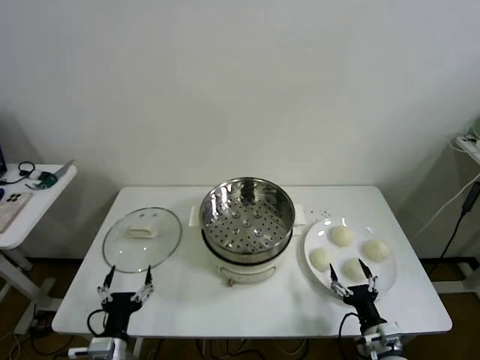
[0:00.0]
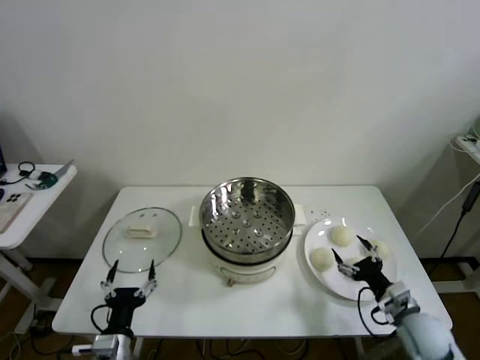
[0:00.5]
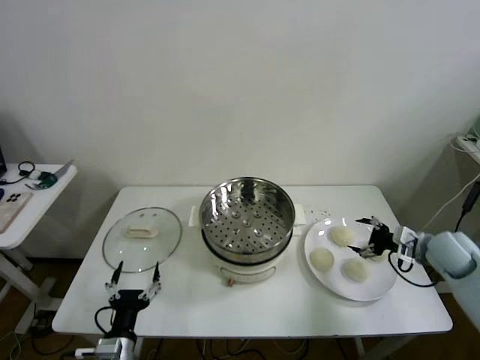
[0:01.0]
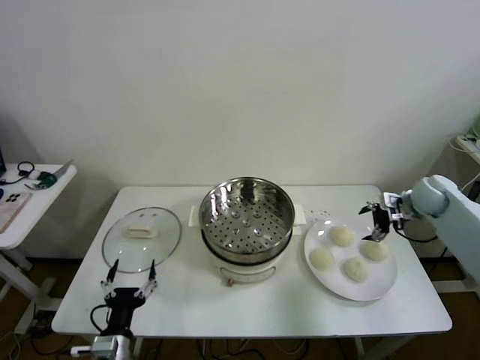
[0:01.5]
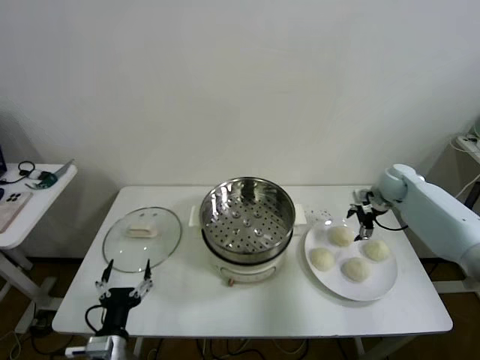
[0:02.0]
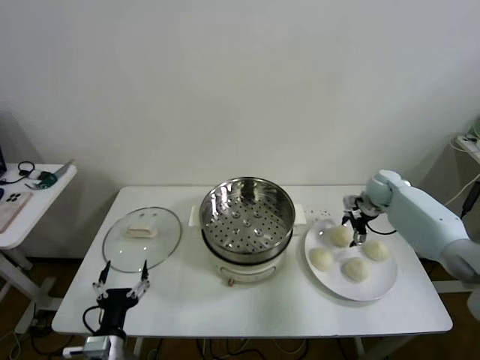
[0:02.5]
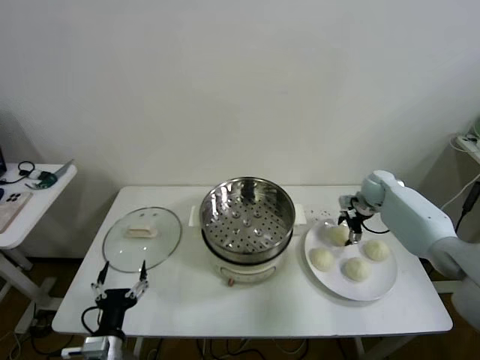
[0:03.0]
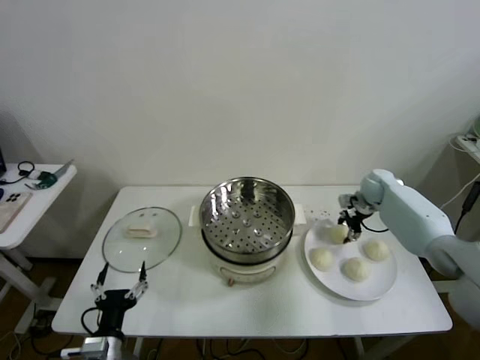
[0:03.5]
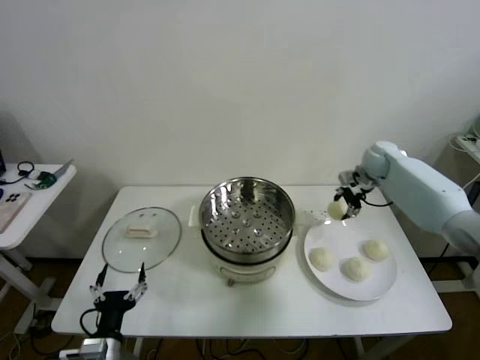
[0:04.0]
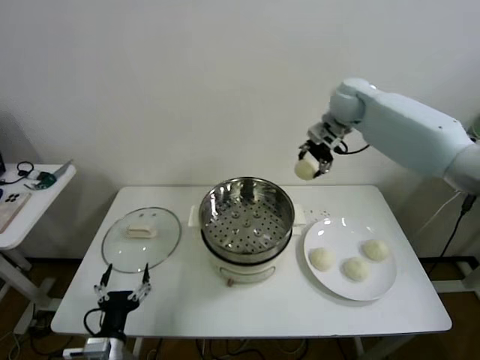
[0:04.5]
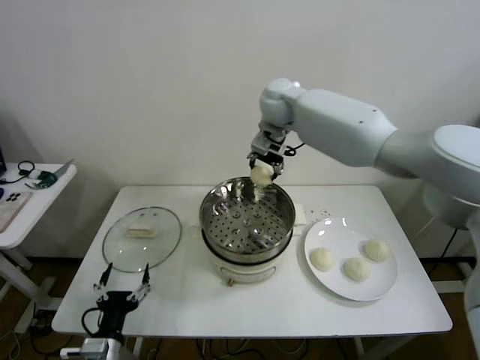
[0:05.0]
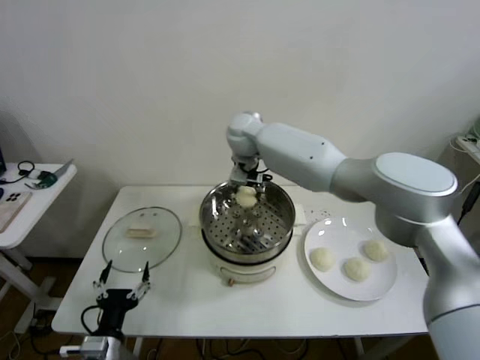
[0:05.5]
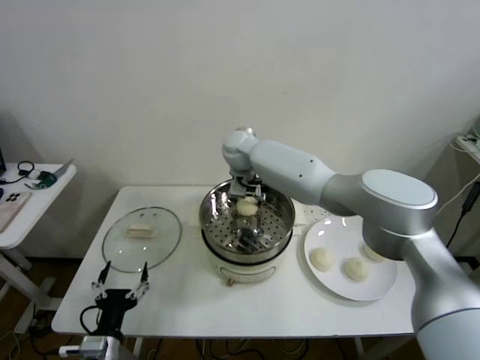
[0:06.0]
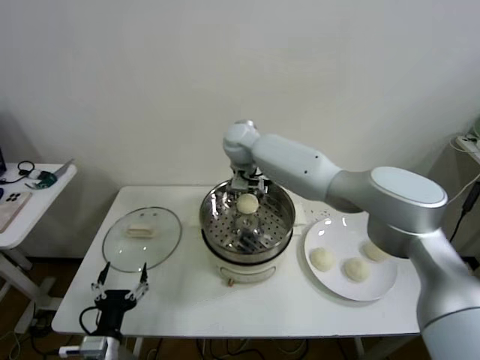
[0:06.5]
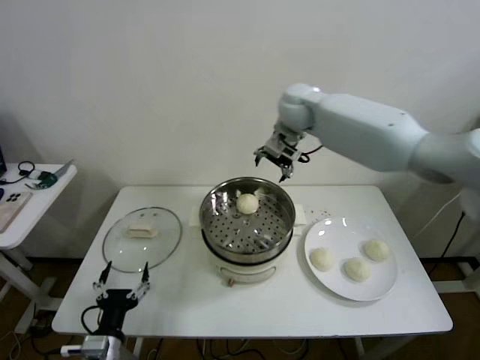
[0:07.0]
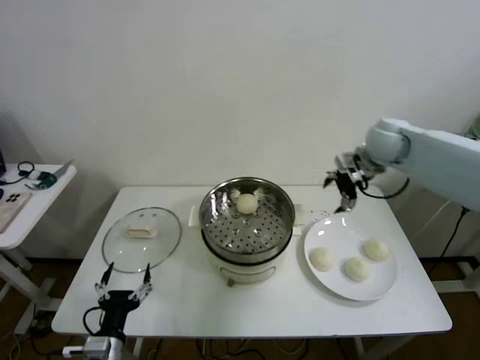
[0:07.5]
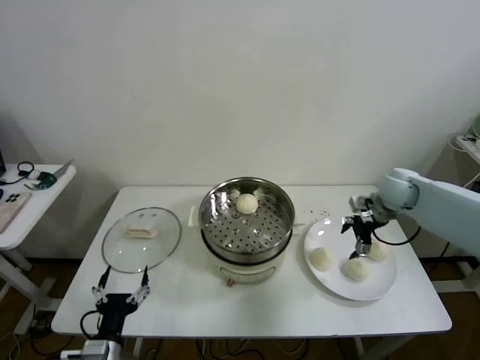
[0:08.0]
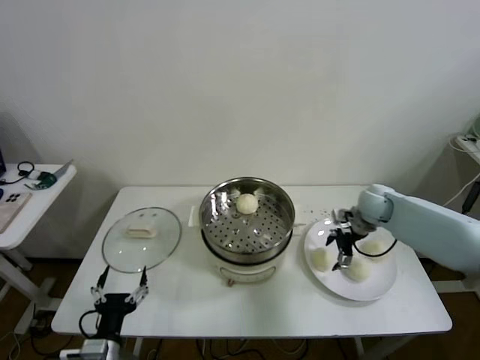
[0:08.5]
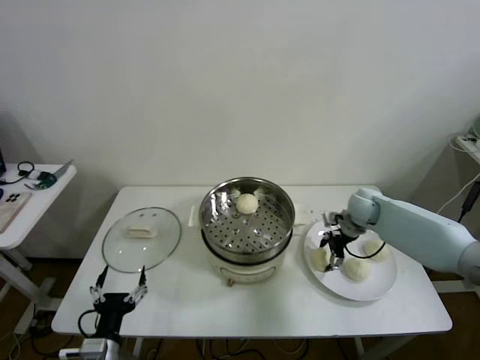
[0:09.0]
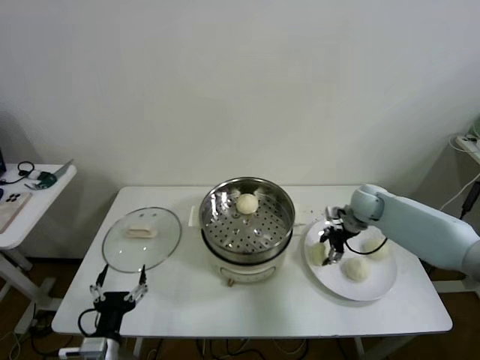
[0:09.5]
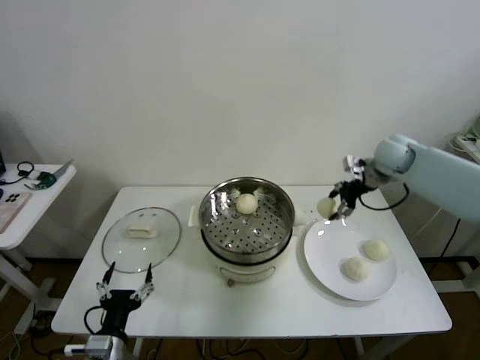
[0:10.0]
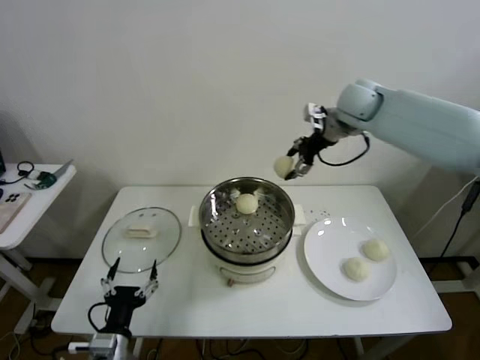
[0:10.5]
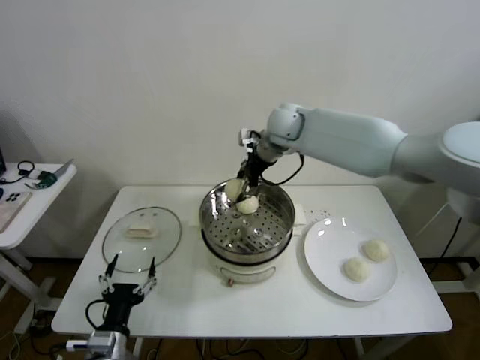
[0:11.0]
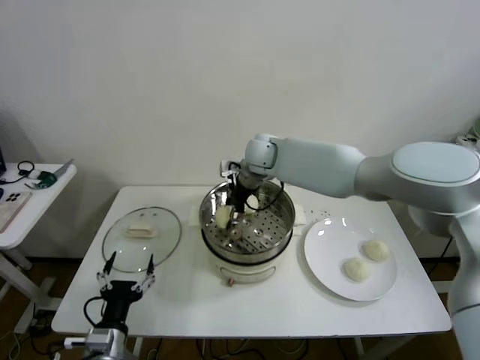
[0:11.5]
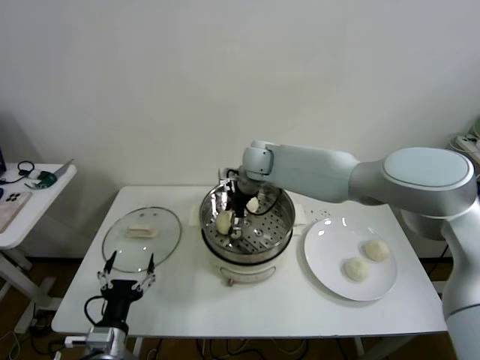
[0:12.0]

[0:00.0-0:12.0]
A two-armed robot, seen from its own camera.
Task of the whole recording: take steamed baozi put them in steamer then cover it.
Step, 0:00.0 to 0:03.0: Grasp the baozi in the plate with right gripper.
Step, 0:03.5 to 0:06.0: Place the baozi on the steamer with right gripper.
Step, 0:06.5 to 0:09.0: Grasp the baozi in the plate with right gripper.
0:02.0 to 0:04.0: The right gripper goes about 10 cm upward and to the left, and closes up.
0:04.0 to 0:06.0: The right gripper is displaced to the left by about 35 cm, and opens.
0:06.0 to 0:08.0: The right gripper goes some 40 cm to the right.
0:08.0 to 0:10.0: The right gripper travels upward and forward by roughly 15 cm, and closes its fingers.
0:10.0 to 0:12.0: The right gripper shifts roughly 30 cm to the left, and opens up.

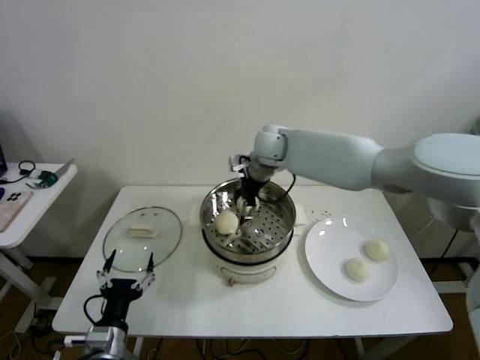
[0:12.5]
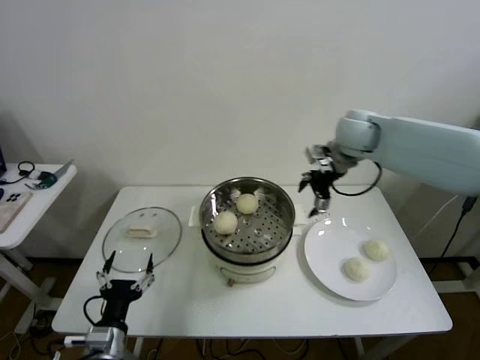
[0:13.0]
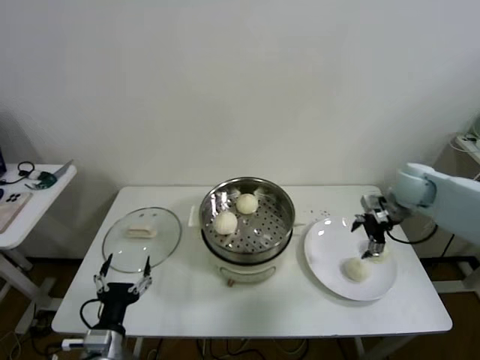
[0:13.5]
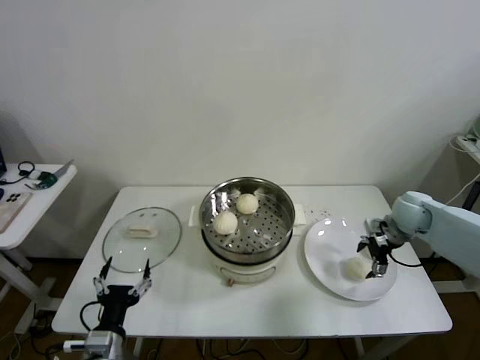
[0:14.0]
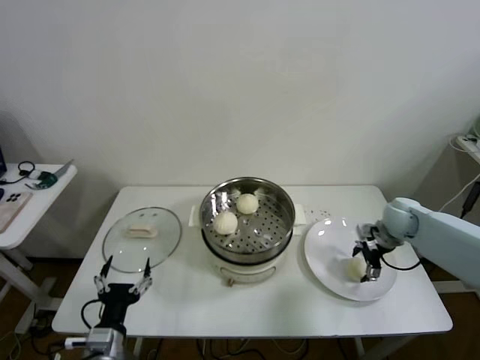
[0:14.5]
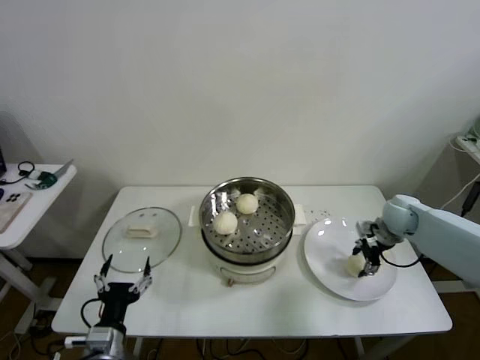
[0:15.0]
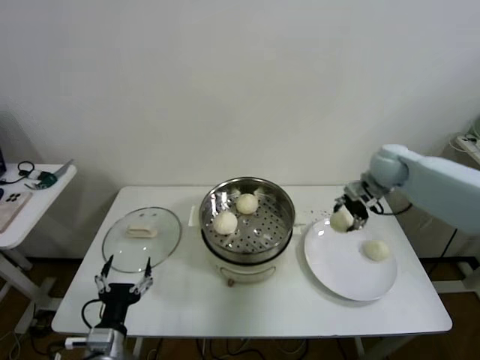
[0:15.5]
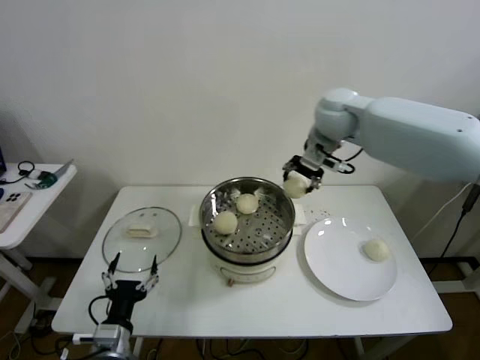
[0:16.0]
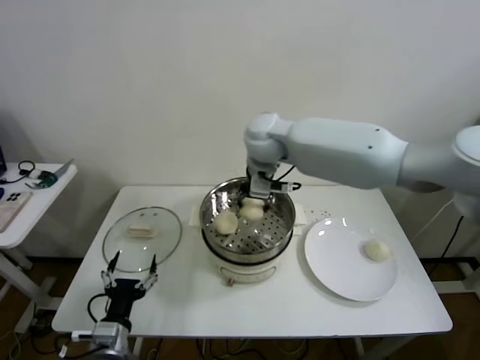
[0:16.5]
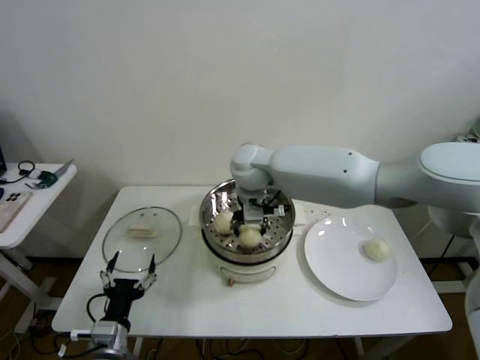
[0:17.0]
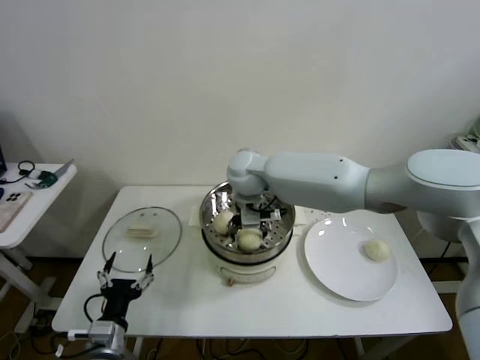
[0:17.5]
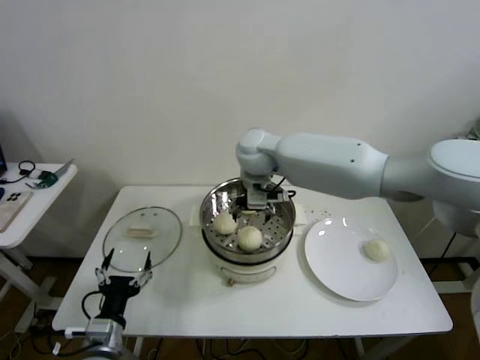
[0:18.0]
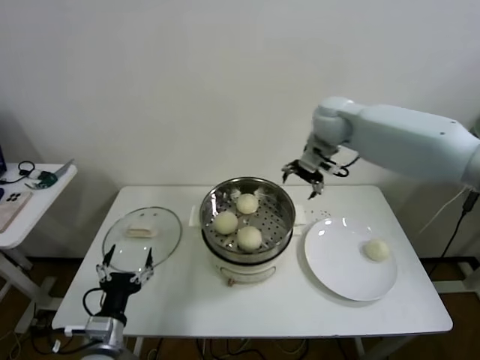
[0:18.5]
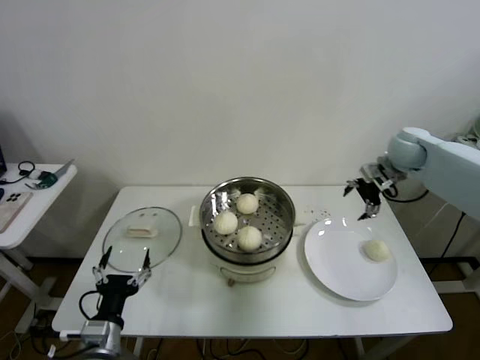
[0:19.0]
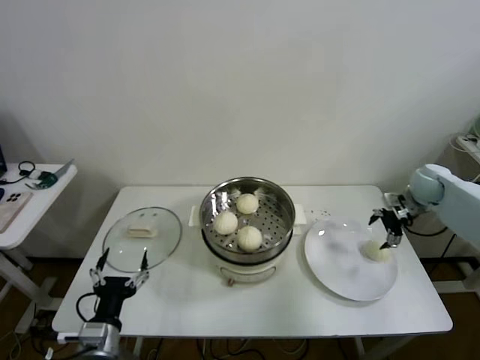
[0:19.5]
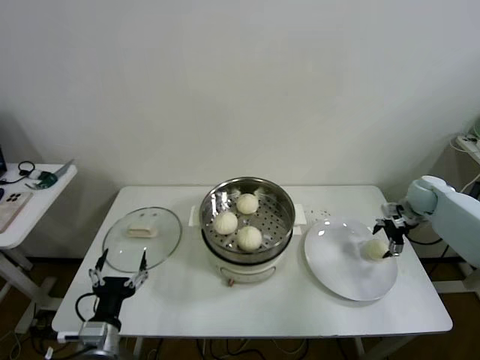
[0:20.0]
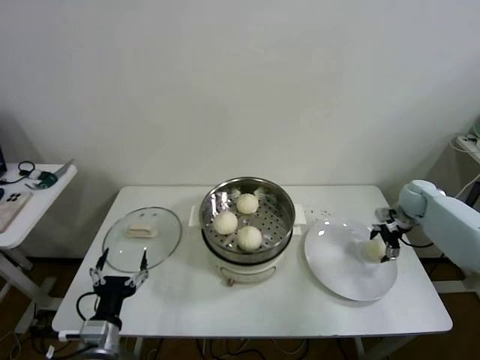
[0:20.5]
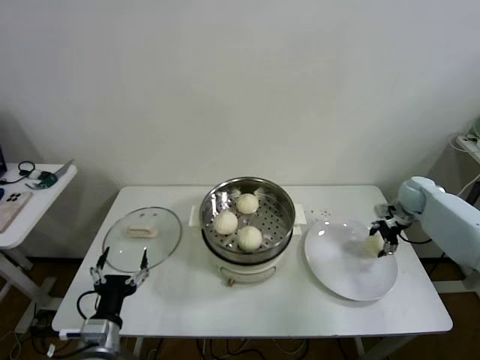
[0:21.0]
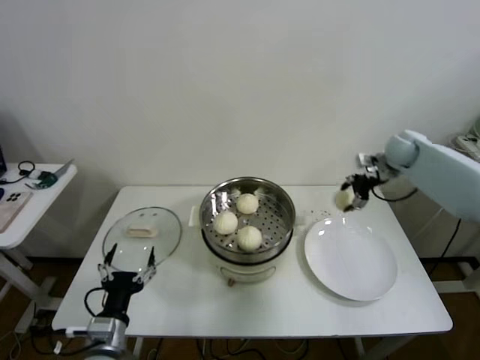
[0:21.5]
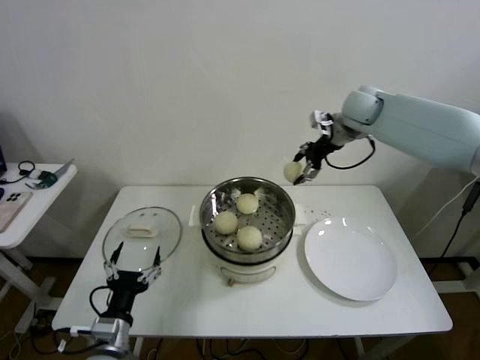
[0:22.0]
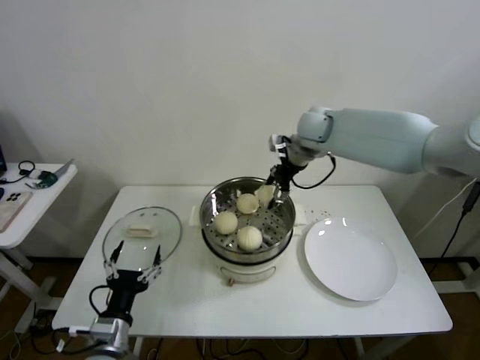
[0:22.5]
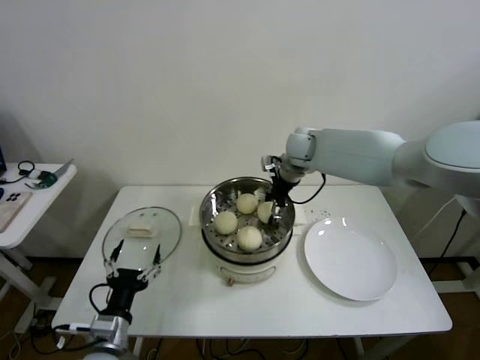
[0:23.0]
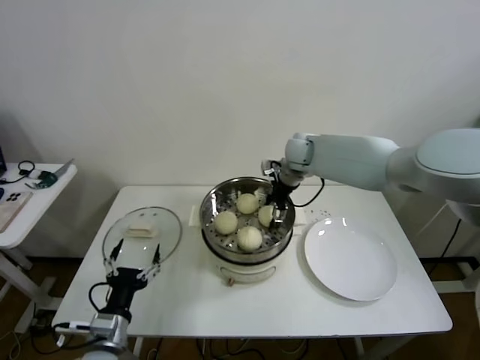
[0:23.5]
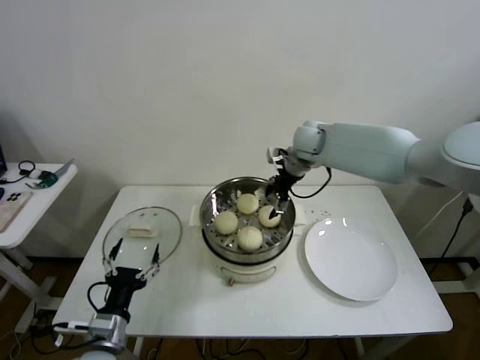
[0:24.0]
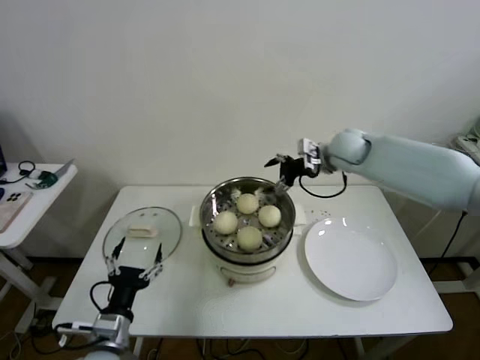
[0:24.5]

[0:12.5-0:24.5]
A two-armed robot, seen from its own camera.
Task of the whole recording: take steamed baozi put them in steamer then cover it.
Step, 0:12.5 to 0:14.5: Grasp the baozi in the plate with right gripper.
Step, 0:15.0 to 0:17.5: Place the baozi on the steamer with right gripper.
Step, 0:18.0 to 0:20.5: Grasp the baozi in the plate with right gripper.
Step, 0:21.0 to 0:23.5: Place the baozi on the steamer with right gripper.
0:12.5 to 0:14.5: The right gripper goes roughly 35 cm to the right and downward.
0:14.5 to 0:16.5: The right gripper is displaced to the left and upward by some 40 cm, and closes.
0:16.5 to 0:18.5: The right gripper shifts roughly 20 cm to the right, and opens.
0:18.5 to 0:20.5: The right gripper heads to the right and downward, covering roughly 35 cm.
0:20.5 to 0:22.5: The right gripper shifts about 35 cm to the left and upward, and closes up.
0:22.5 to 0:24.5: The right gripper travels to the right by about 10 cm, and opens up.

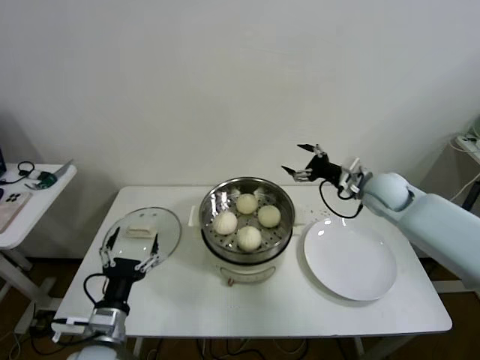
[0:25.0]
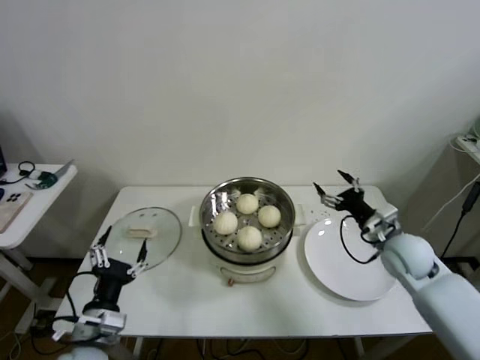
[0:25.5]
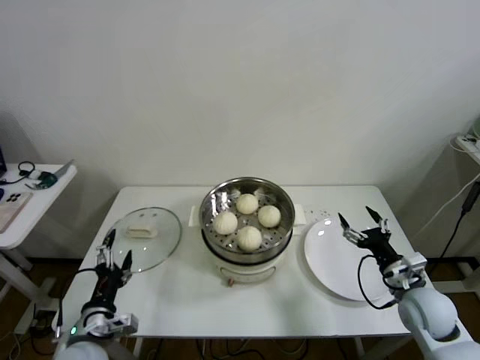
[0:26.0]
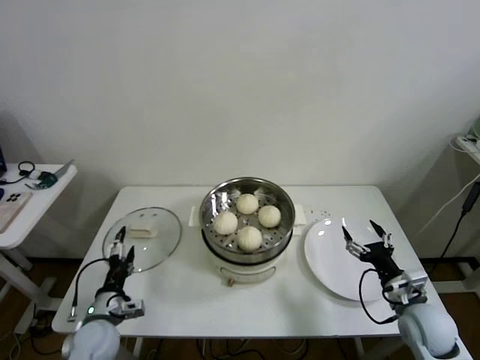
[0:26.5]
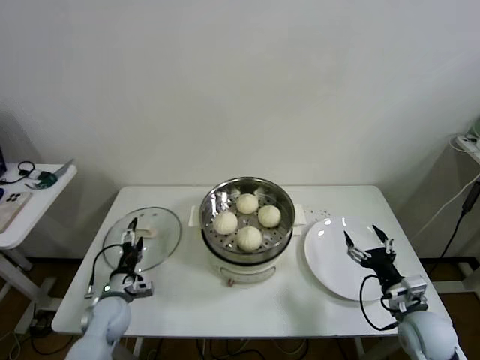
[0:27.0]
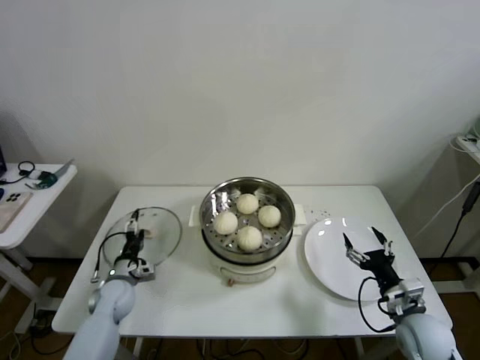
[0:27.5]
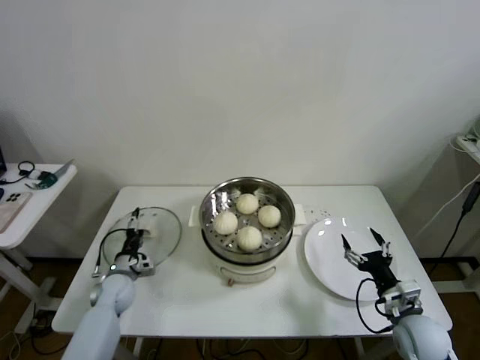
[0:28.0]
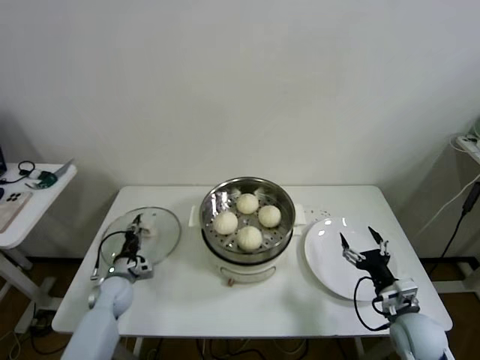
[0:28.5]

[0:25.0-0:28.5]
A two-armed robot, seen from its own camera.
Task of the whole recording: take steamed baozi put them in steamer then cover it.
0:25.0 to 0:27.0: The right gripper moves backward and downward, roughly 30 cm. Meanwhile the left gripper moves forward, downward and to the left, approximately 20 cm.
0:27.0 to 0:28.5: The left gripper moves forward, about 5 cm, and closes.
